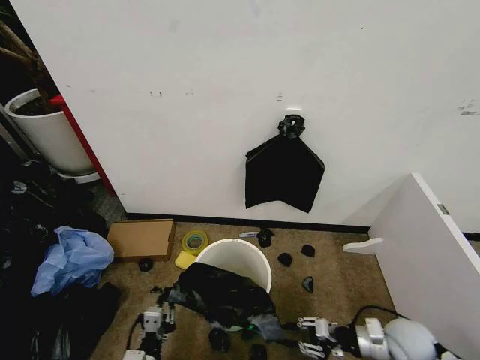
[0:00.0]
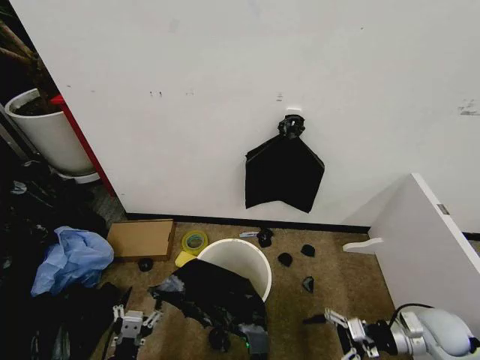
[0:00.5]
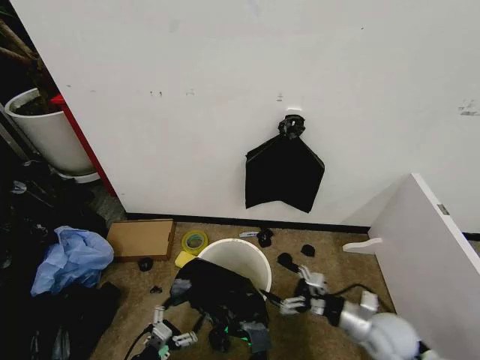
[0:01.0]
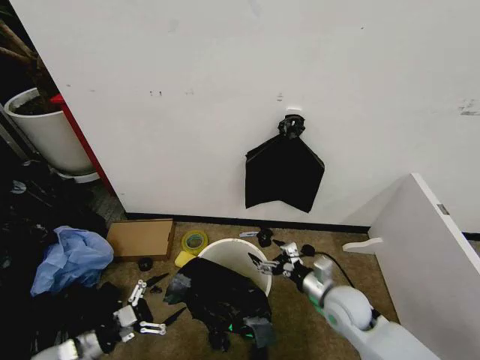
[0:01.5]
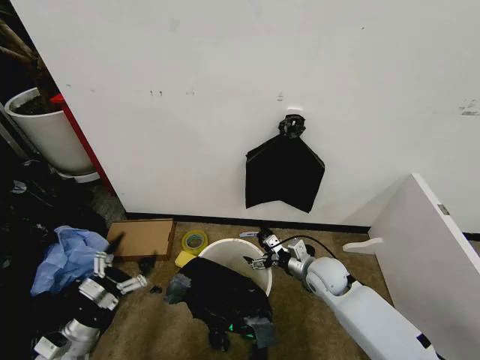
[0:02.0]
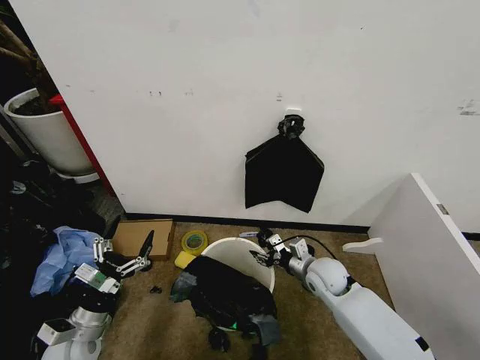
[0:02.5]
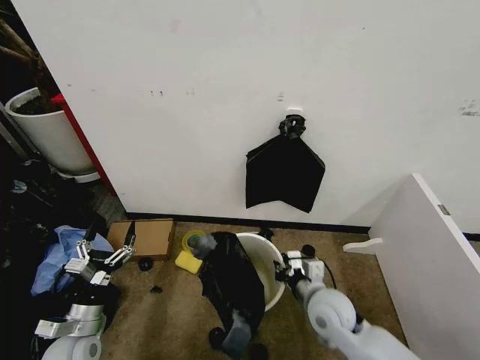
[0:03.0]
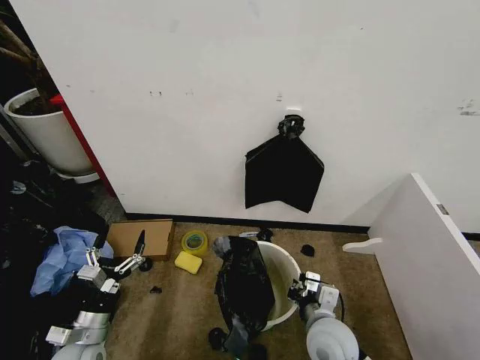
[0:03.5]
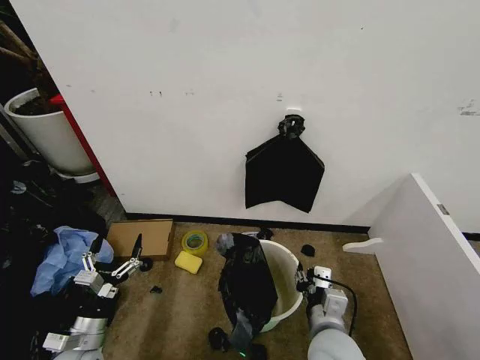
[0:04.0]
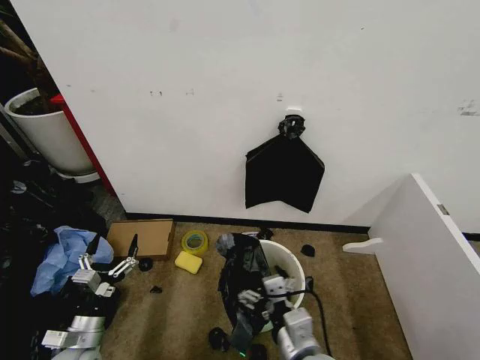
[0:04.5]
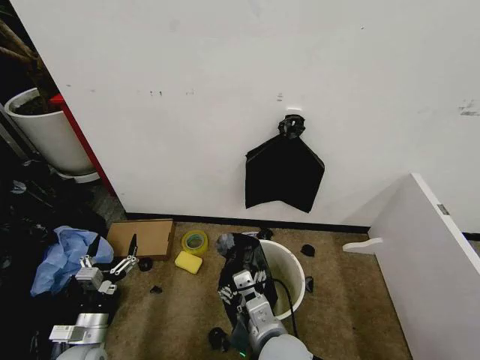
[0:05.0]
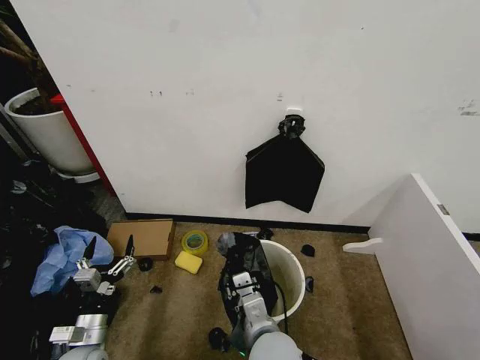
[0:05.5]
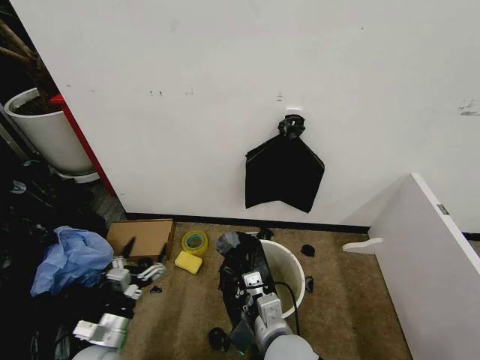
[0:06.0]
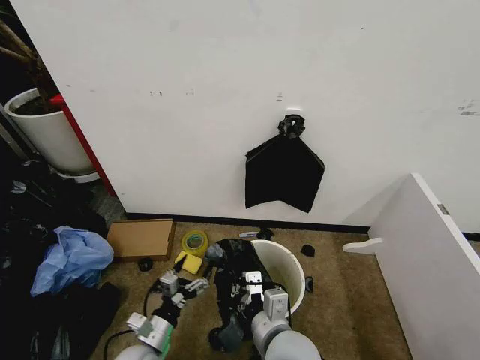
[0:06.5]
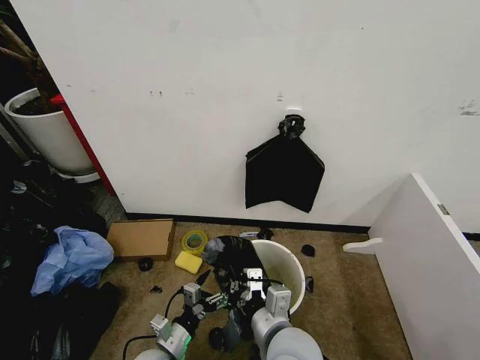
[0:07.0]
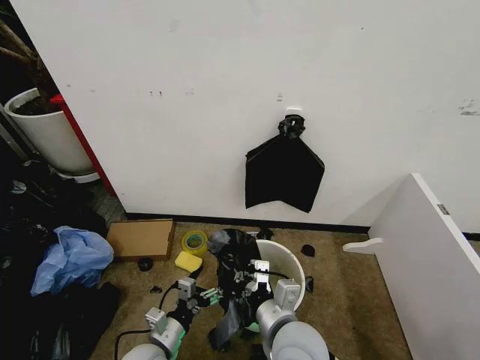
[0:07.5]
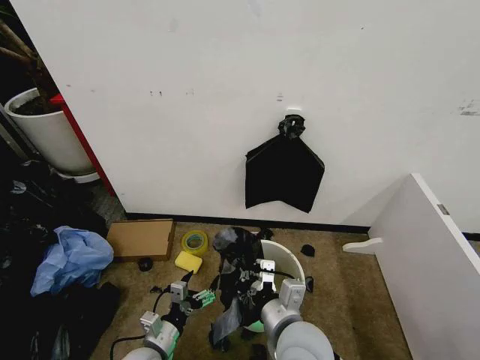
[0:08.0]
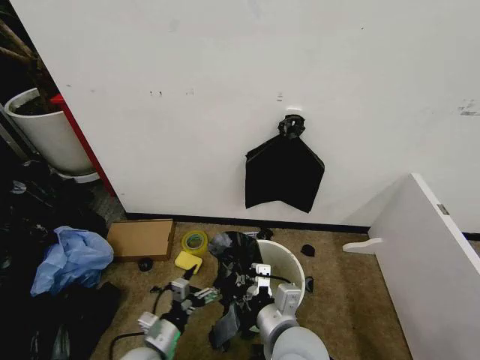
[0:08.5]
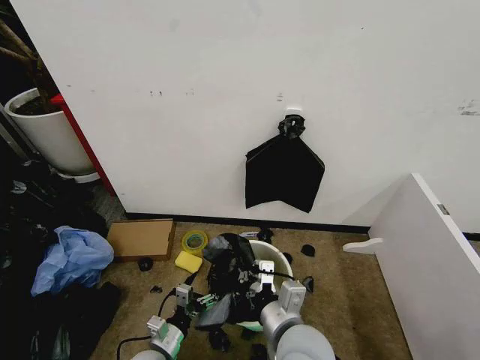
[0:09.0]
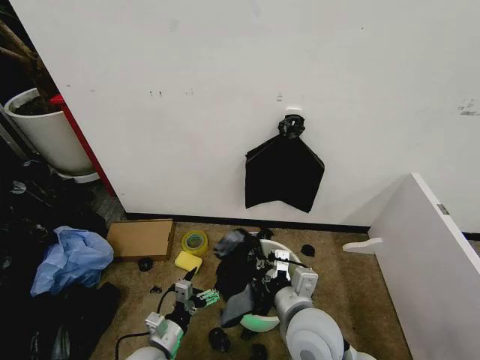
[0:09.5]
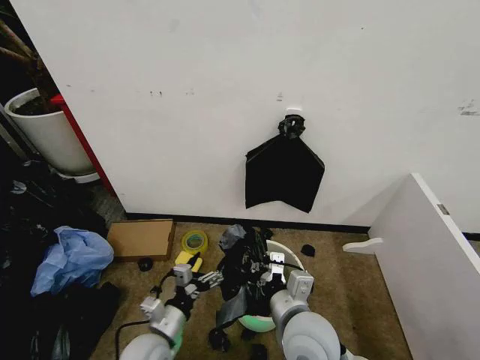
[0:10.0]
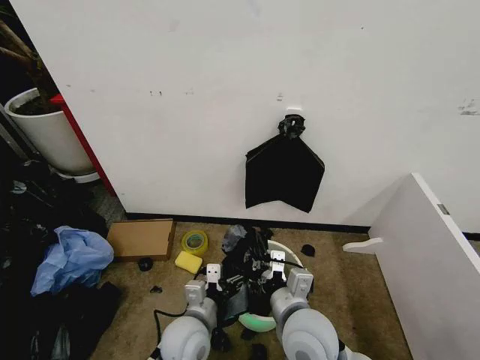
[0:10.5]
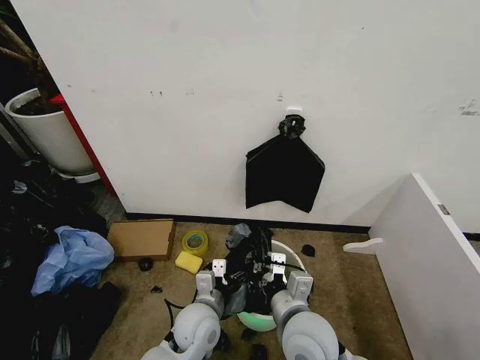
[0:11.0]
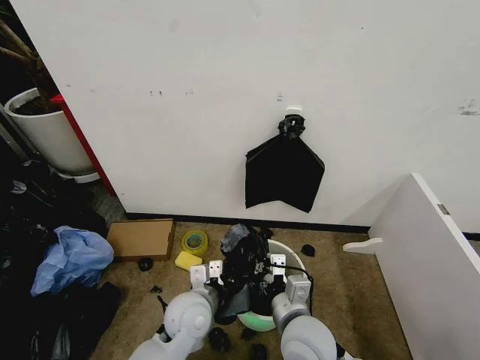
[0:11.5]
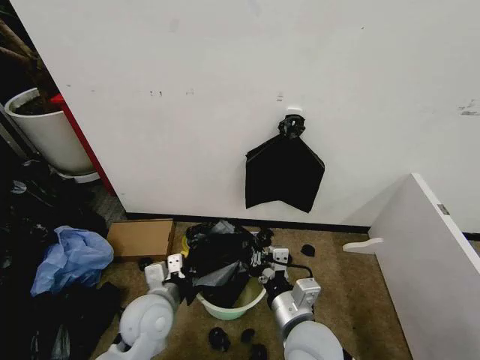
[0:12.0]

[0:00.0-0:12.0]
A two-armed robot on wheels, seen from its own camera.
Task of the whole recording: Place the garbage bag over the trash bin.
0:00.0 to 0:02.0: Both grippers travel together to the left and forward, about 20 cm. The right gripper opens its fingers, while the left gripper opens its fingers.
0:02.0 to 0:04.0: The left gripper heads to the right, covering about 5 cm; the right gripper shifts roughly 20 cm backward, and closes.
0:04.0 to 0:06.0: The right gripper heads to the left, covering about 10 cm, and closes.
0:06.0 to 0:08.0: The left gripper heads to the right, covering about 10 cm.
0:08.0 to 0:10.0: The left gripper goes roughly 5 cm upward.
0:10.0 to 0:12.0: The left gripper goes some 10 cm upward and forward, goes to the right and returns, about 10 cm each way, and closes its fingers.

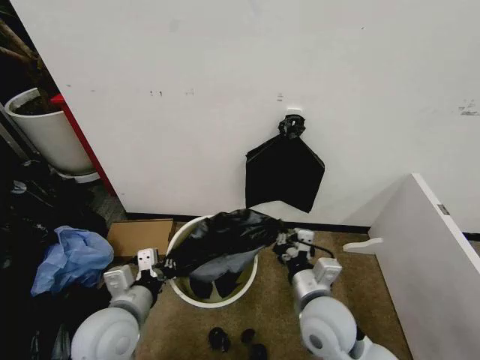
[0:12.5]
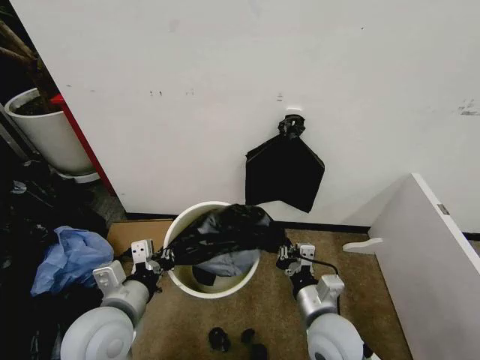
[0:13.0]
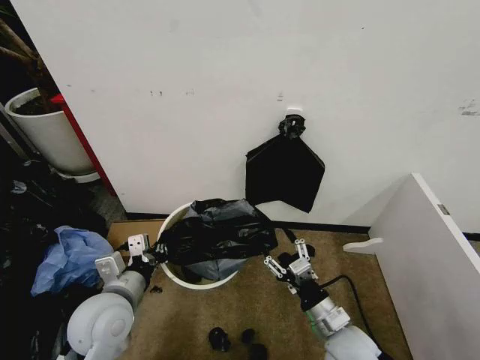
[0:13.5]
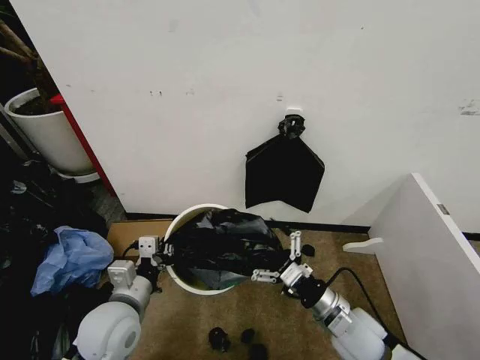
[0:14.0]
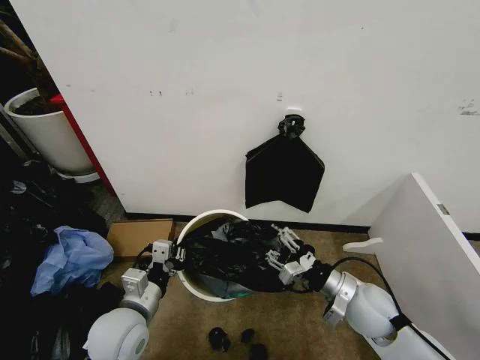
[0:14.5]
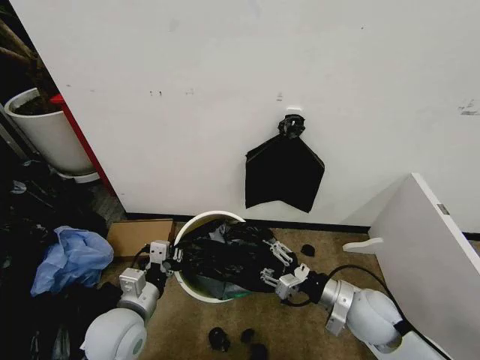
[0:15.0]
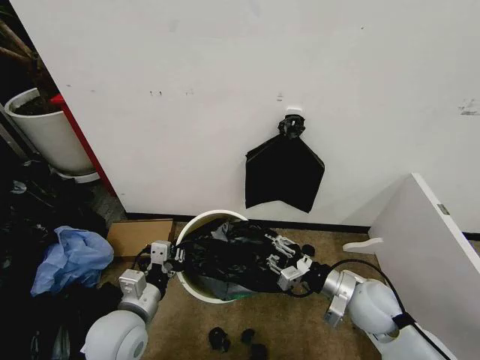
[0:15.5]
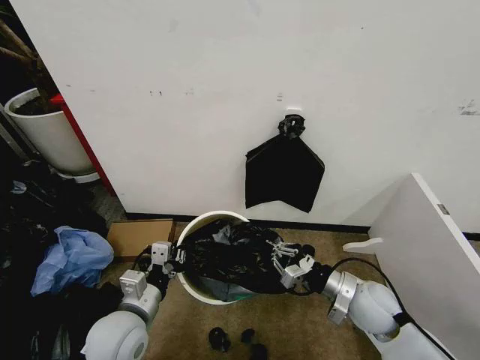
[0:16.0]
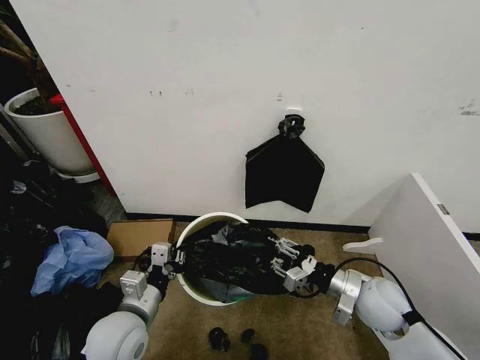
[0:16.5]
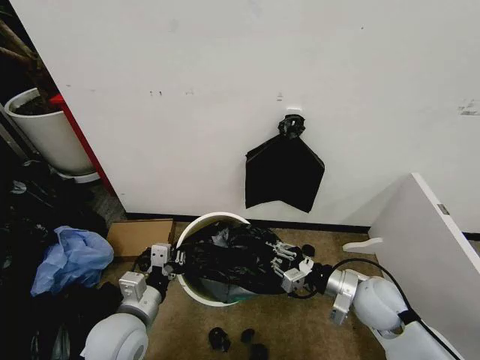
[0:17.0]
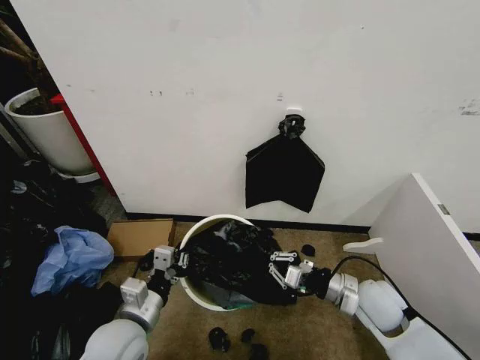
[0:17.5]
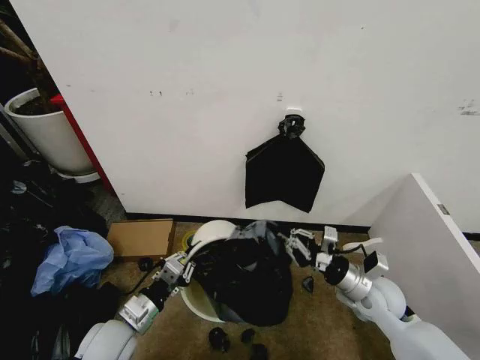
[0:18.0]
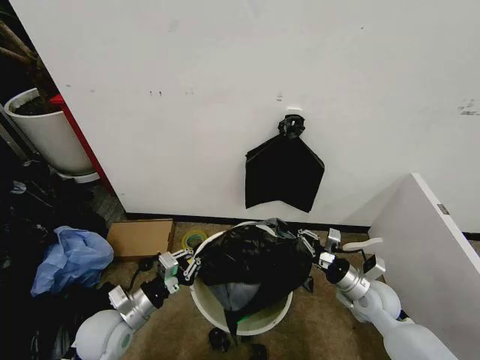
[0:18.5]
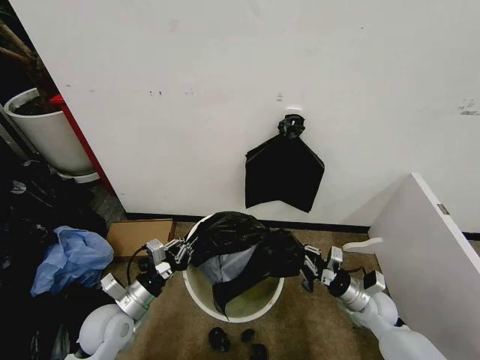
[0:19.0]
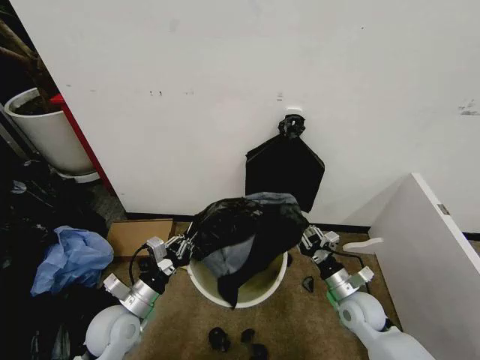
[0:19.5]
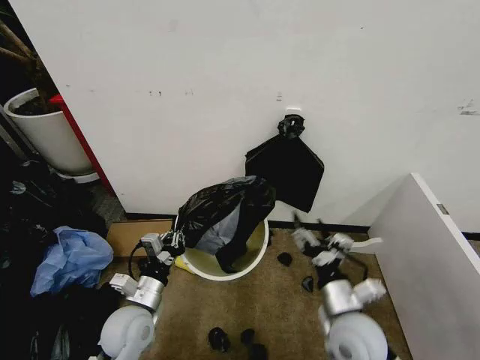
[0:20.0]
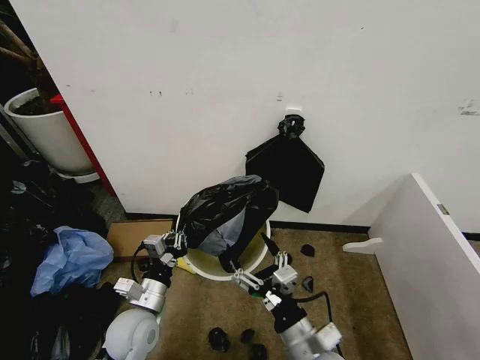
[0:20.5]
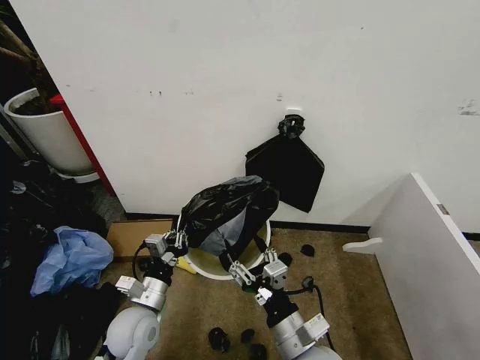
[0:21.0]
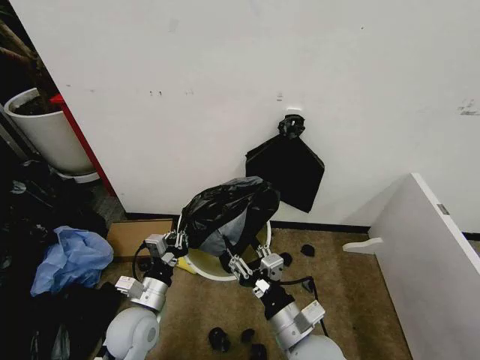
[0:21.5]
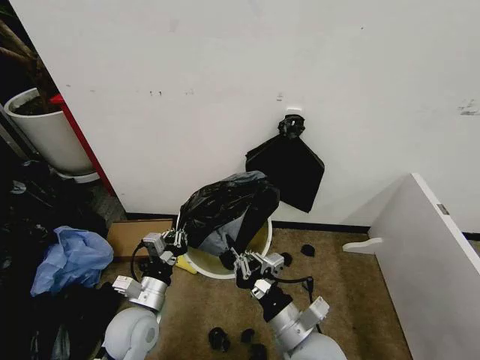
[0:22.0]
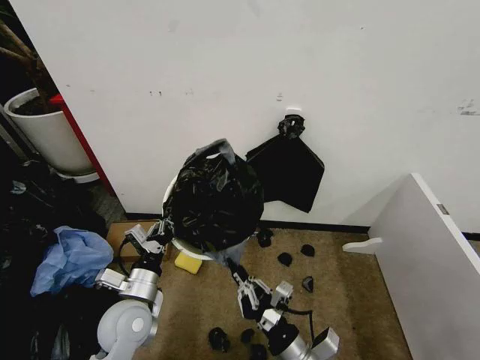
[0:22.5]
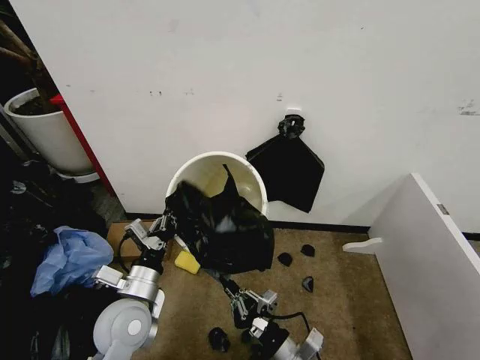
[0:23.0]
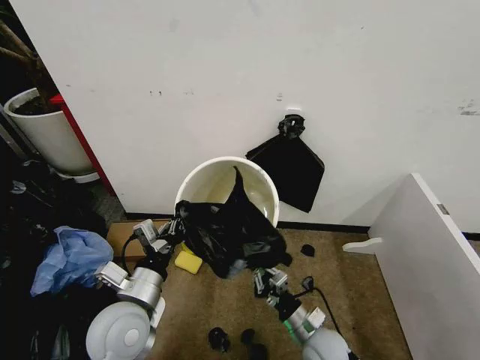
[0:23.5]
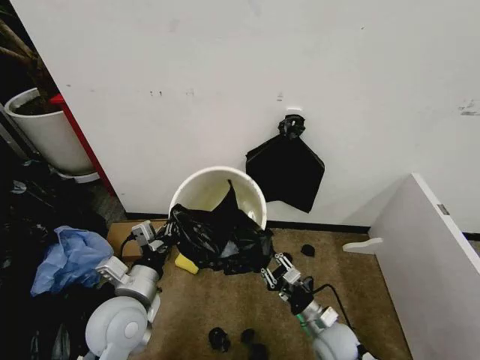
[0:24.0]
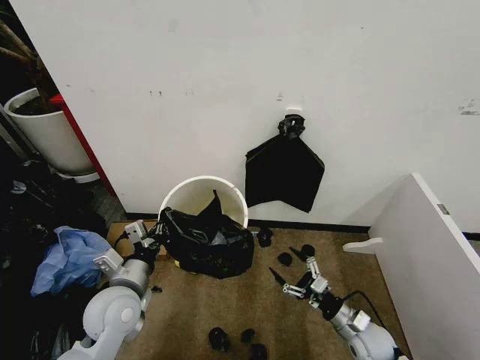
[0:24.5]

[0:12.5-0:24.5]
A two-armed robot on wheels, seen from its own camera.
Task of the whole recording: Place the garbage bag over the trash bin.
0:12.5 to 0:14.5: The right gripper heads to the right, covering approximately 10 cm, and opens its fingers; the left gripper shifts by approximately 5 cm.
0:14.5 to 0:16.5: There are only small adjustments of the grippers.
0:16.5 to 0:18.5: The left gripper moves downward and to the left, roughly 5 cm. The right gripper shifts approximately 5 cm downward.
0:18.5 to 0:20.5: The right gripper shifts about 25 cm to the left and backward, and opens its fingers. Meanwhile the left gripper is displaced to the right by roughly 5 cm.
0:20.5 to 0:22.5: The right gripper closes its fingers.
0:22.5 to 0:24.5: The right gripper goes roughly 25 cm to the right, downward and forward, and opens.

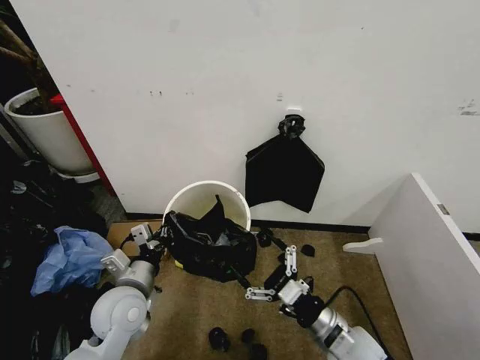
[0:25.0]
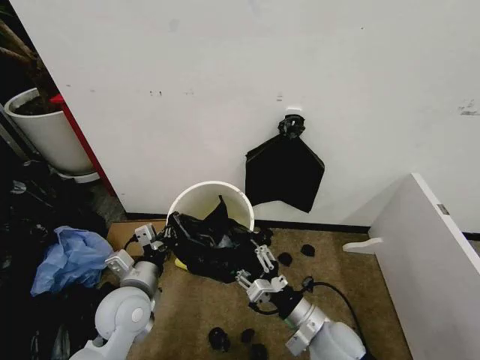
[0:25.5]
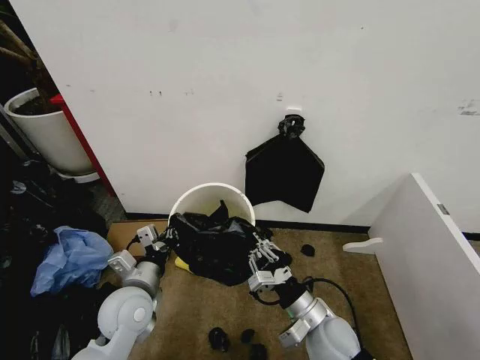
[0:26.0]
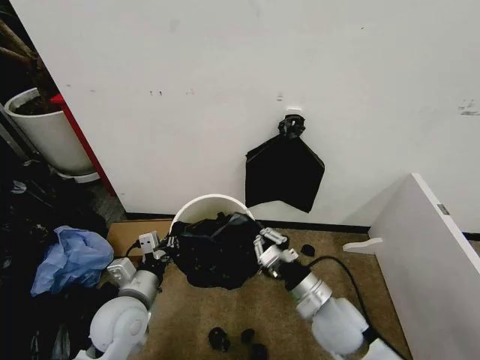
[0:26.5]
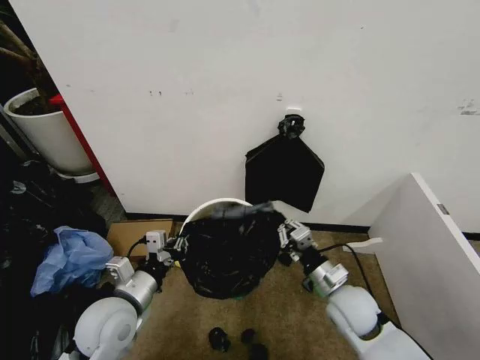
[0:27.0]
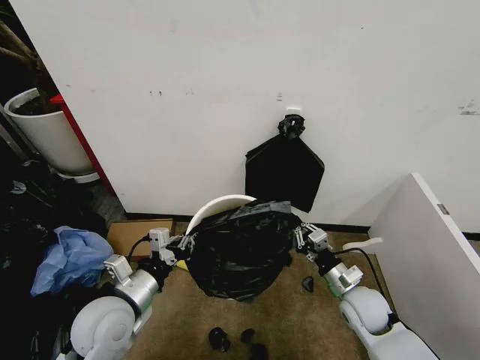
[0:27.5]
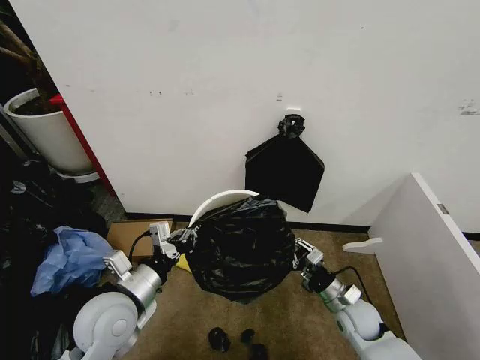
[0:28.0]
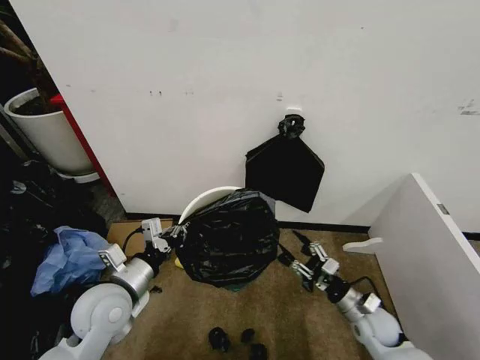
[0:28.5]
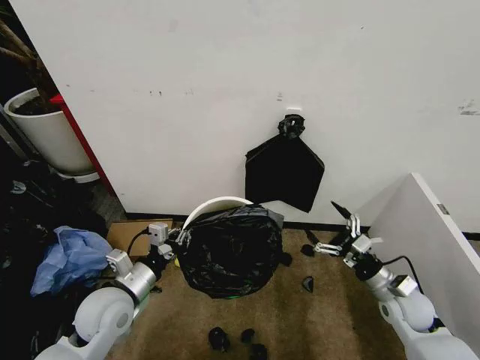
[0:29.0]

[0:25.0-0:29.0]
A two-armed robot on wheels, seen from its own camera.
Task of the whole recording: Place the garbage bag over the trash bin.
0:25.0 to 0:27.0: The right gripper goes roughly 10 cm forward, and closes its fingers.
0:27.0 to 0:29.0: The right gripper is displaced to the right by some 15 cm, and opens.
